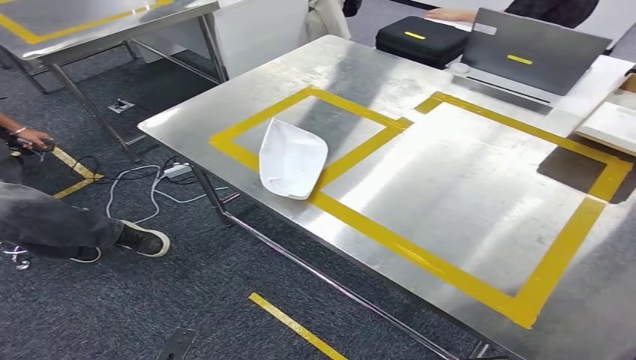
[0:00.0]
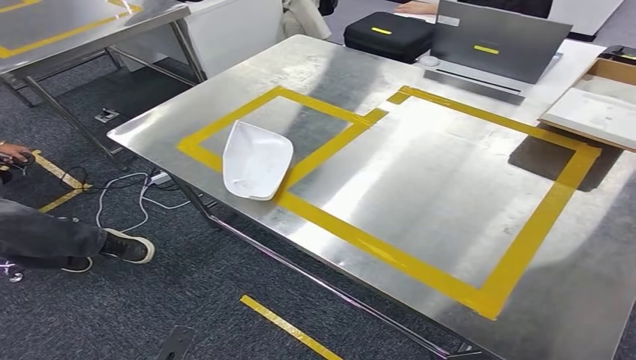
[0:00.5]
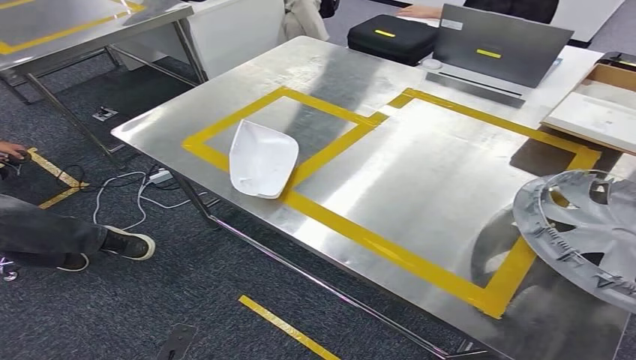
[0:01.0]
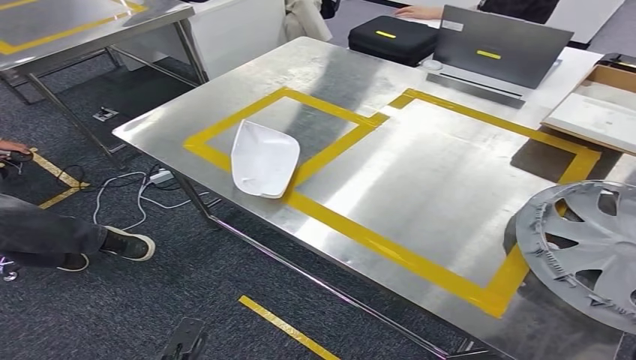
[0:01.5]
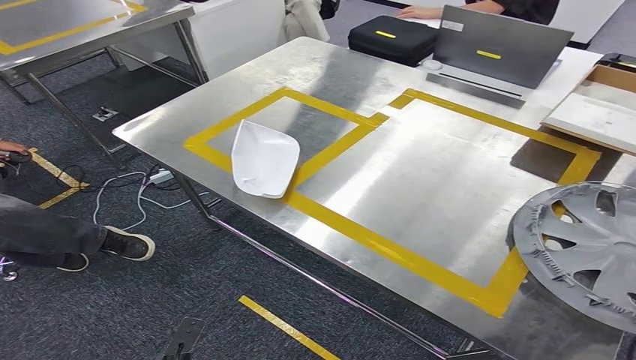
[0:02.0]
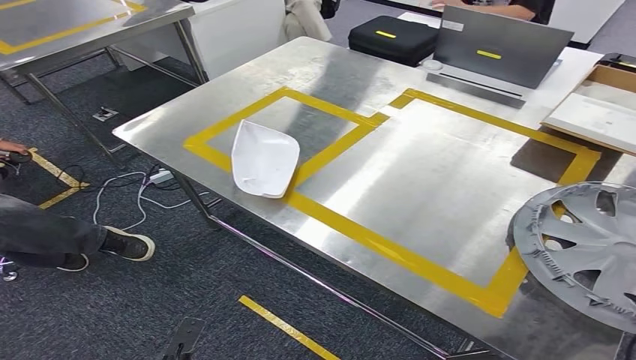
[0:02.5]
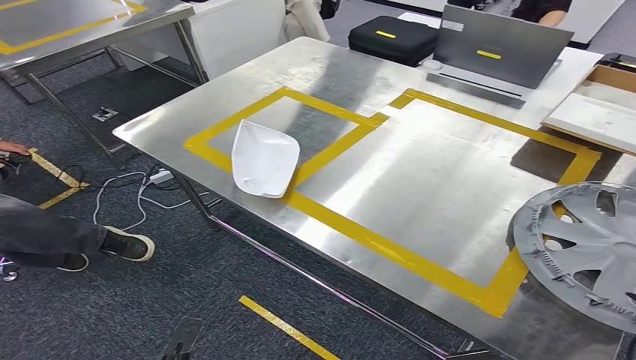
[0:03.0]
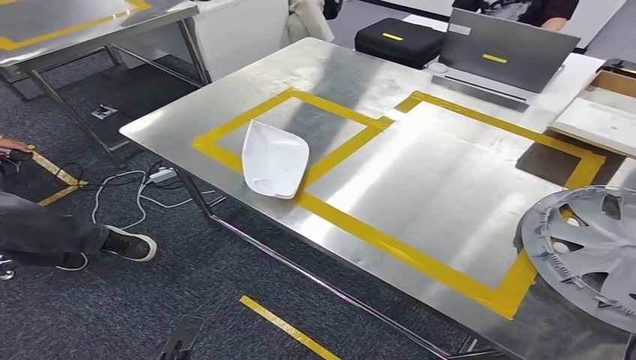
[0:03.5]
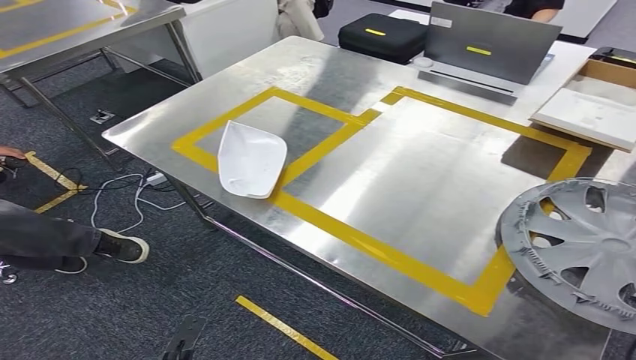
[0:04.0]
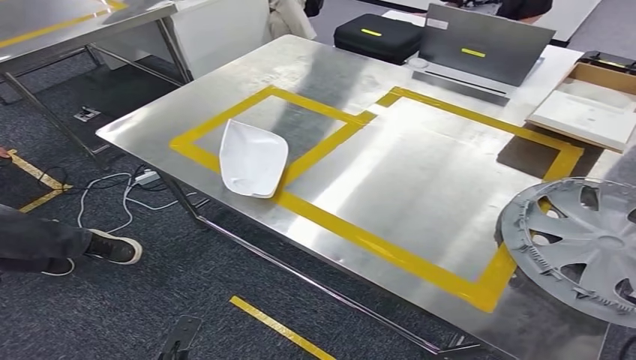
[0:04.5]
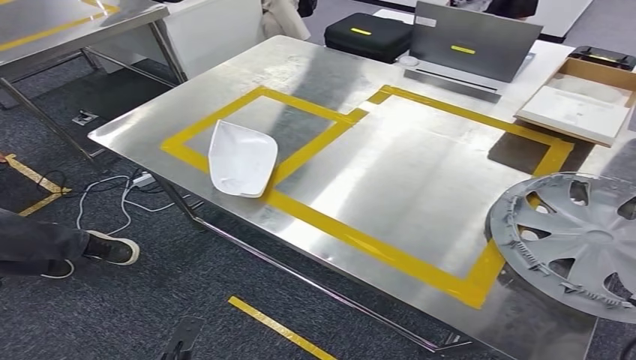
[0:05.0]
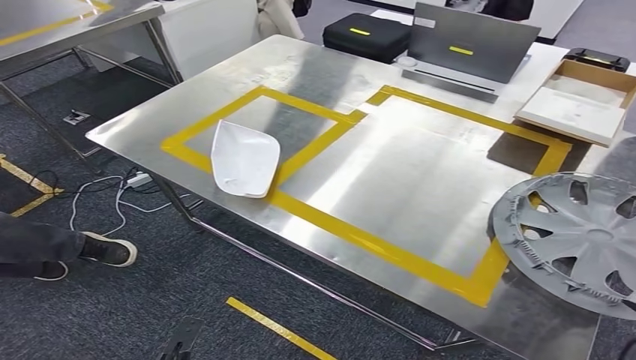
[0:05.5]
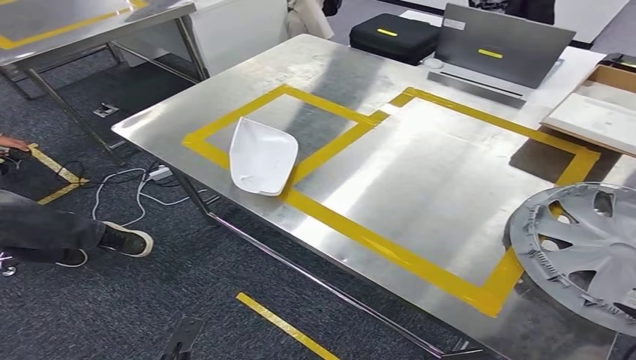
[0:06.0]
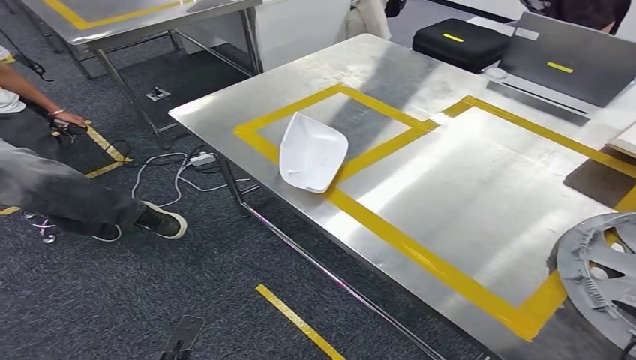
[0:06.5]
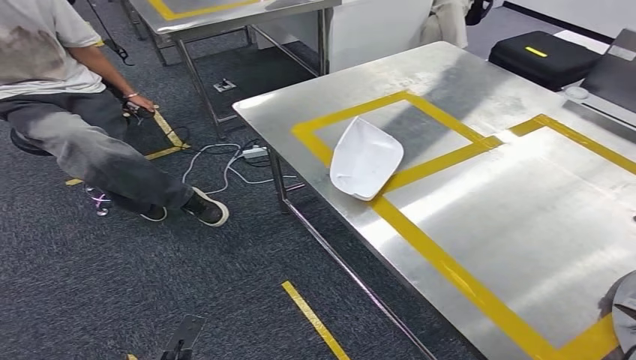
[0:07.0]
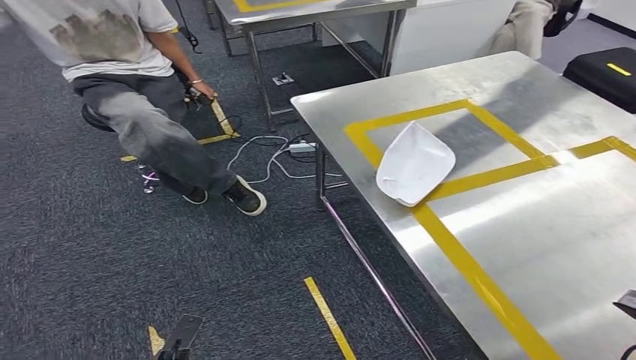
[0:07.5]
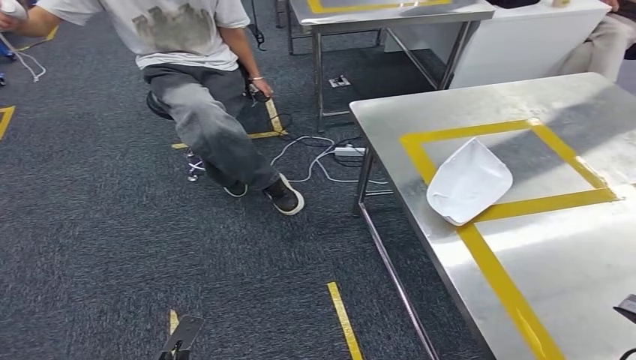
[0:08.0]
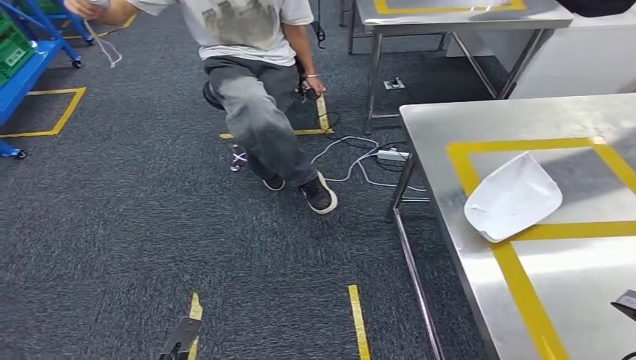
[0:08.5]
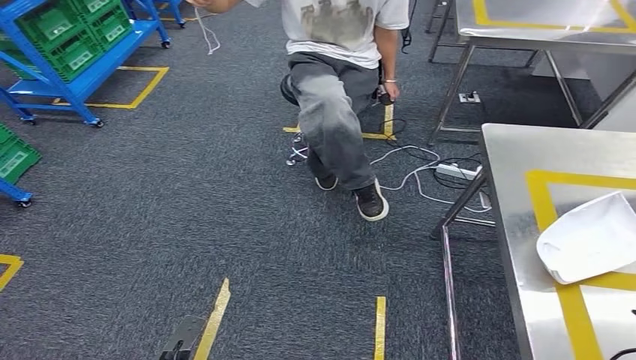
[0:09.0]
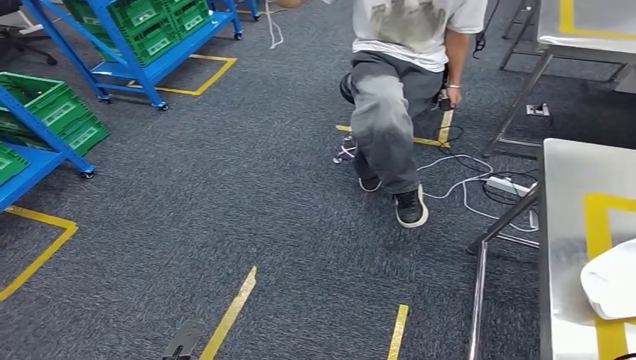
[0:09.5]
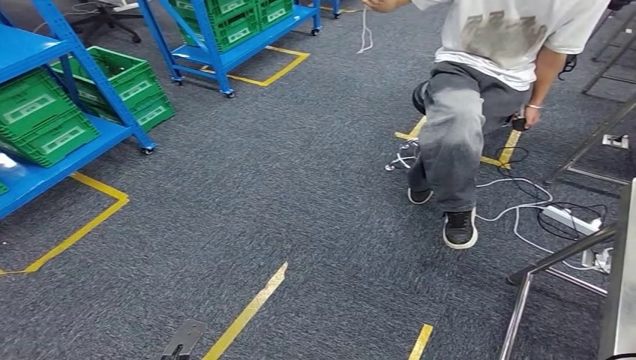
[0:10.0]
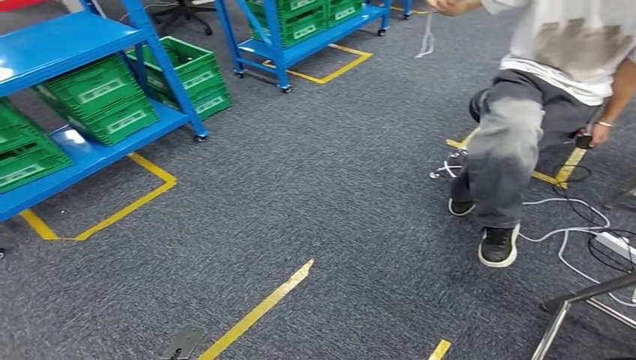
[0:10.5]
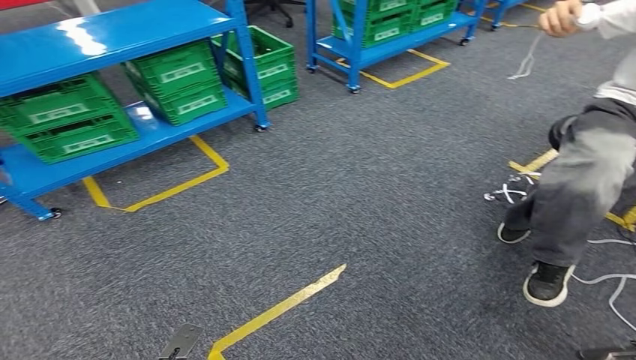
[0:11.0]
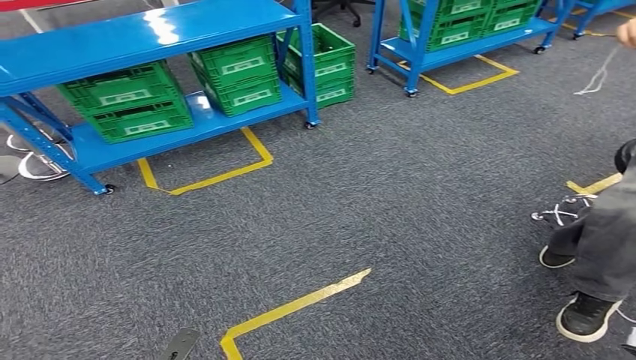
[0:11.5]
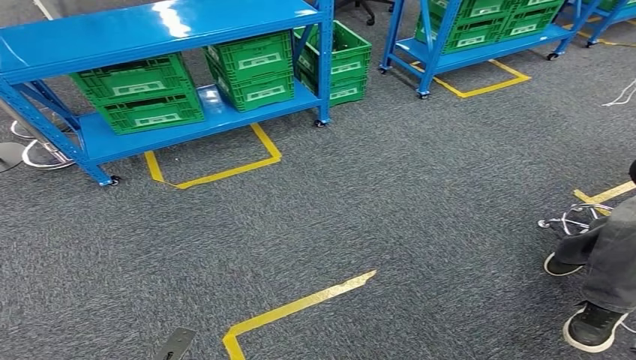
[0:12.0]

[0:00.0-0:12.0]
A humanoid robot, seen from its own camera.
Step, 0:00.0 to 0:05.0: Insert the small parts into the corresponding holes on the workbench.
0:02.0 to 0:04.0: Neither hand changes place.
0:04.0 to 0:06.0: Both hands stay put.

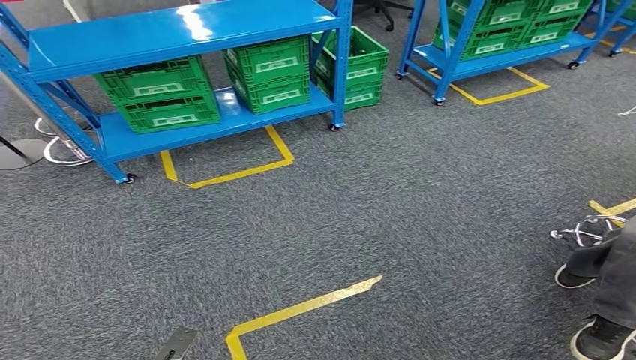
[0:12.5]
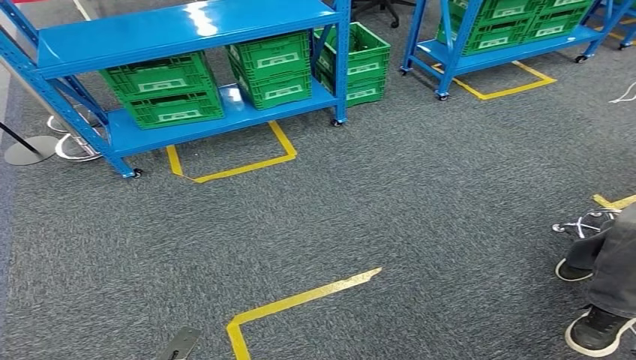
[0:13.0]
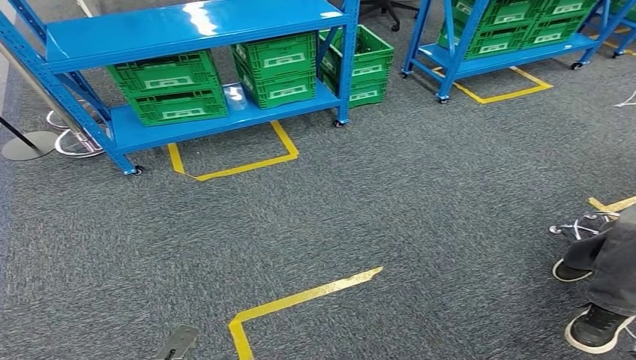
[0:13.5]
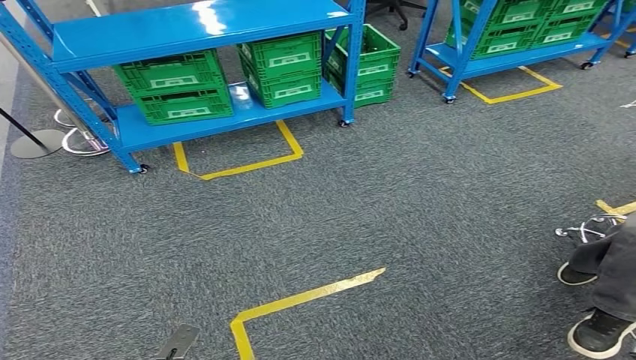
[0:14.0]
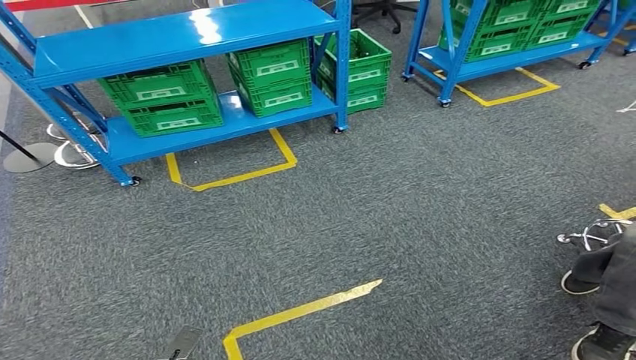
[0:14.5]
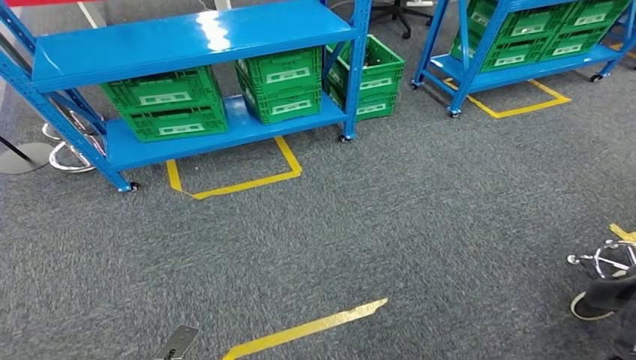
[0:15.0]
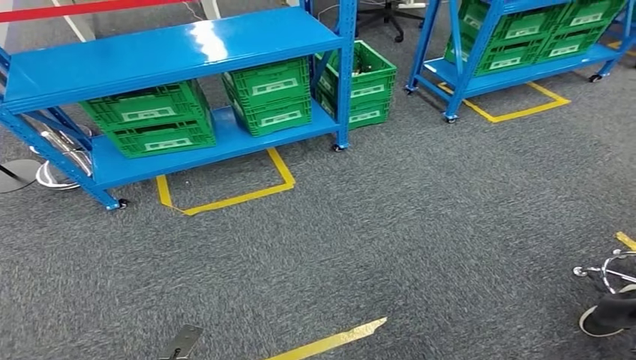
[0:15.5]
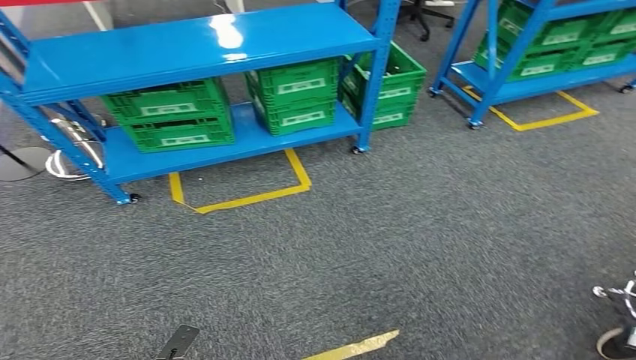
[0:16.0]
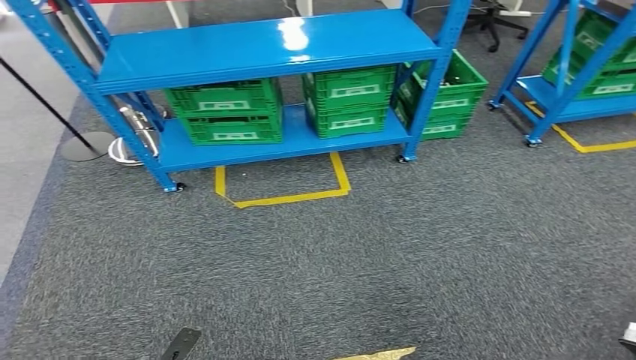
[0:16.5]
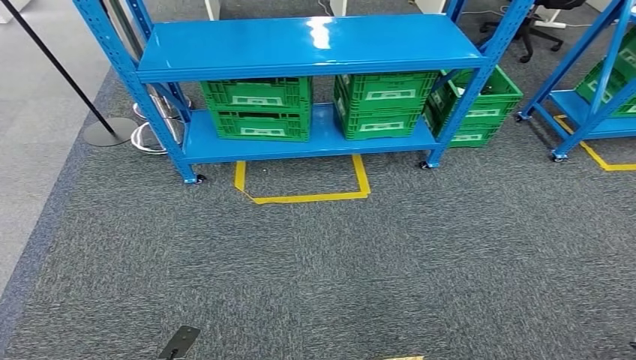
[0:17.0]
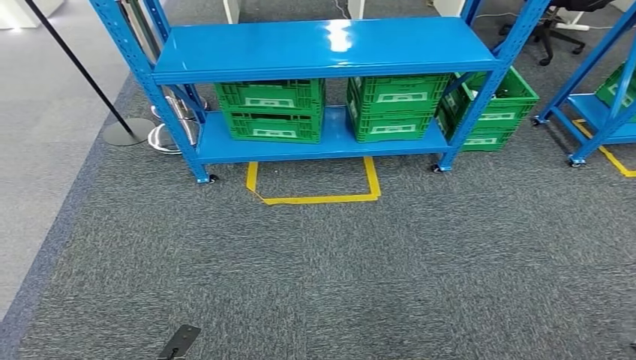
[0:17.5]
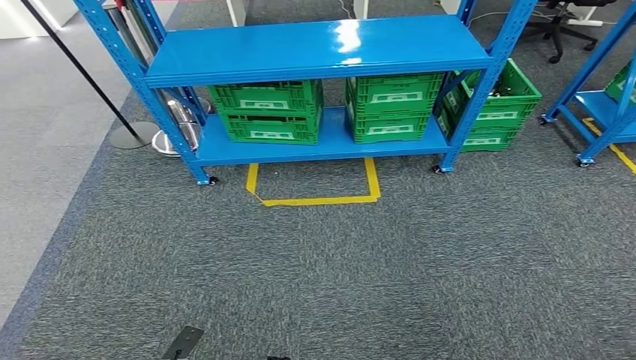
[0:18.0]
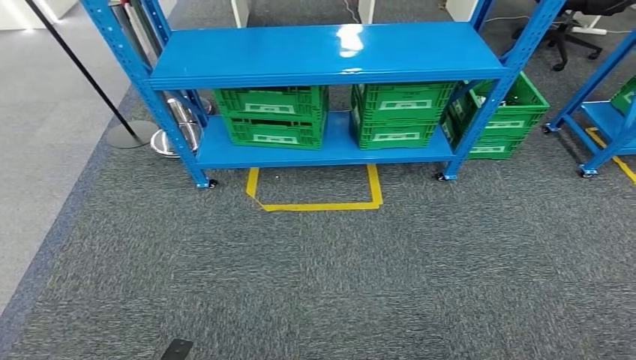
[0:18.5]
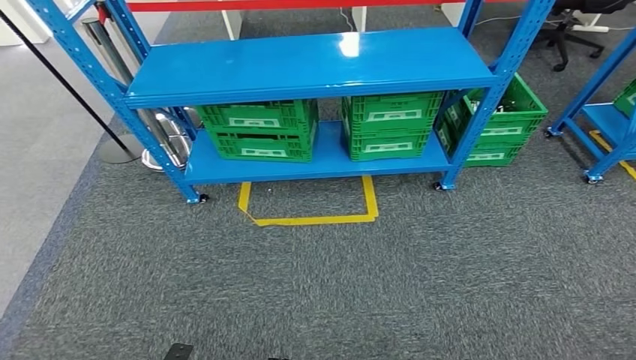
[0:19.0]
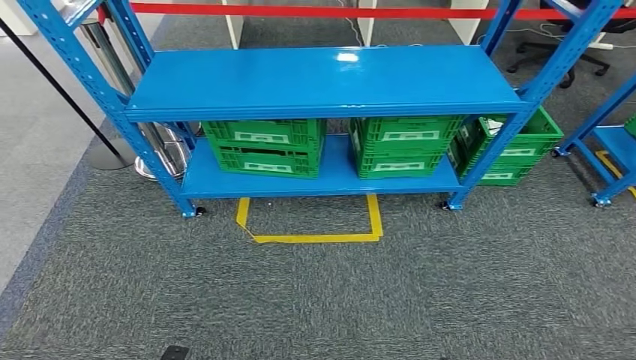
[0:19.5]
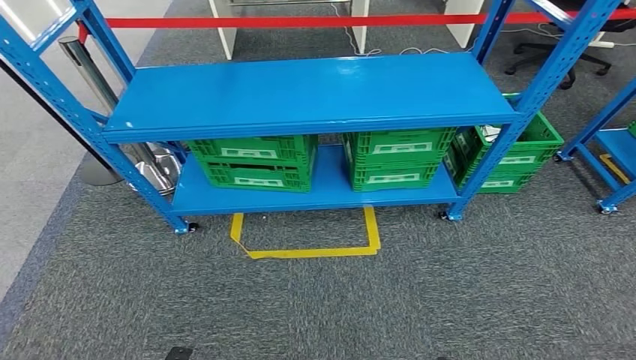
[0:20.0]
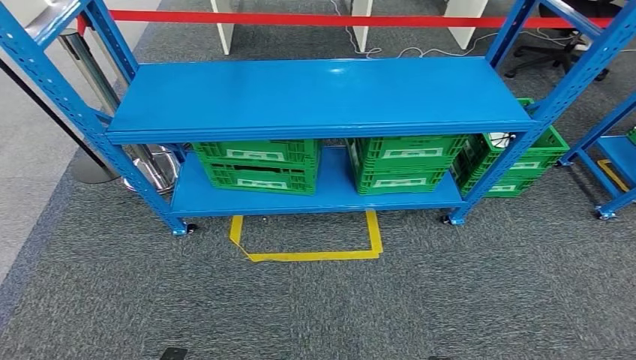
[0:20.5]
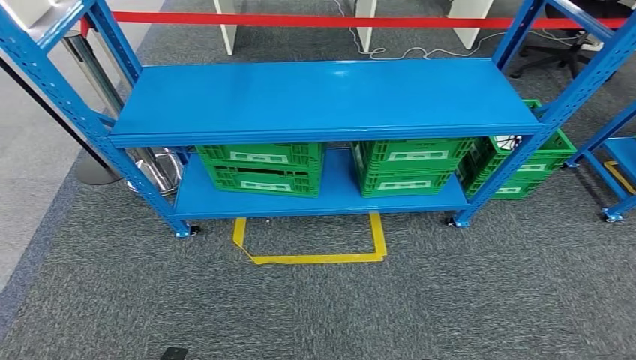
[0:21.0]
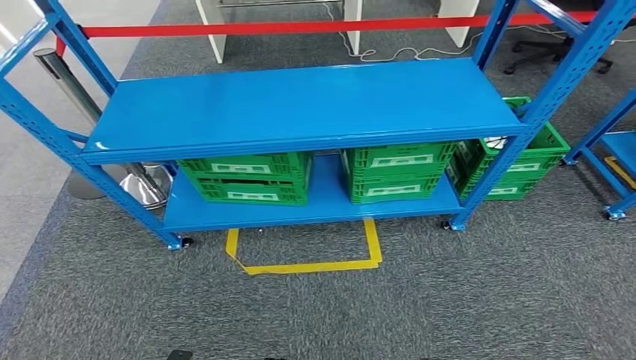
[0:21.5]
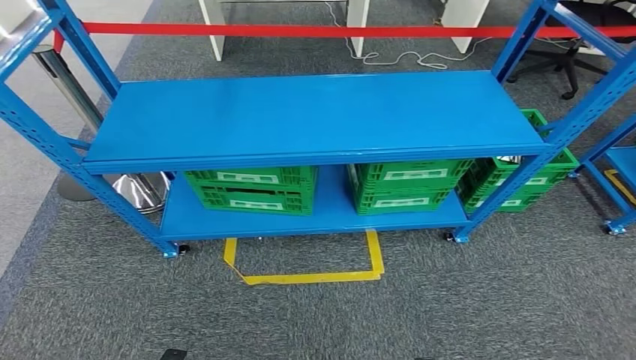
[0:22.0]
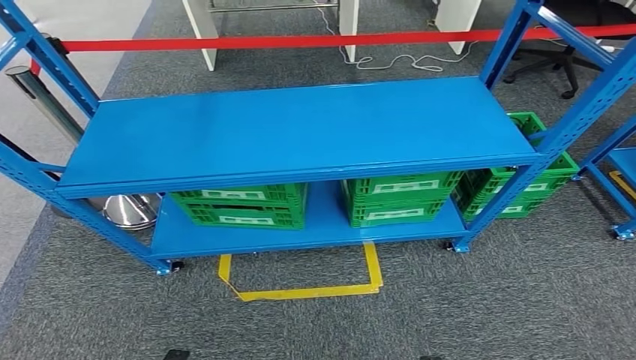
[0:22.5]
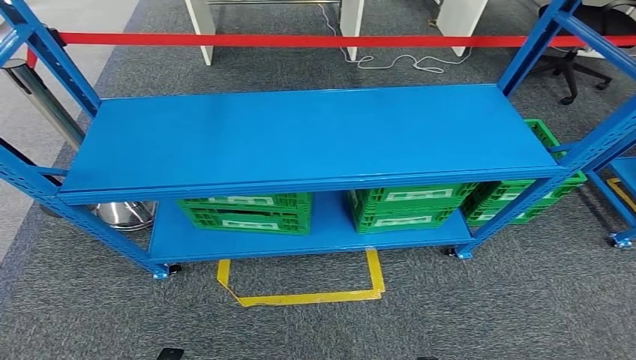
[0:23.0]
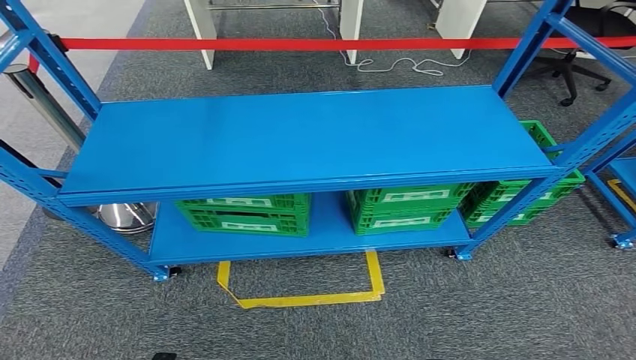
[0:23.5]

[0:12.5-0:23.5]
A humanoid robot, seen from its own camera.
0:12.5 to 0:14.5: The two hands keep their place.
